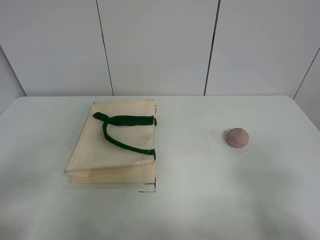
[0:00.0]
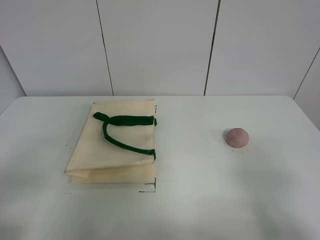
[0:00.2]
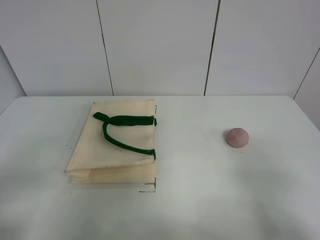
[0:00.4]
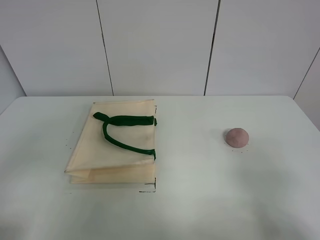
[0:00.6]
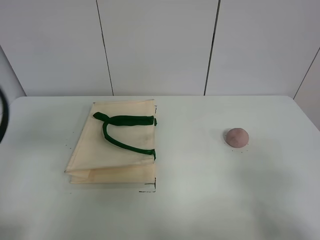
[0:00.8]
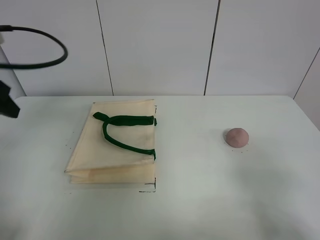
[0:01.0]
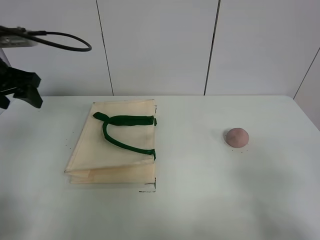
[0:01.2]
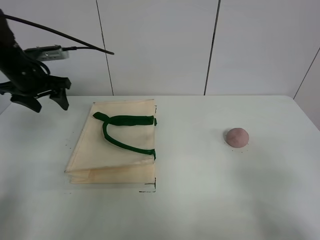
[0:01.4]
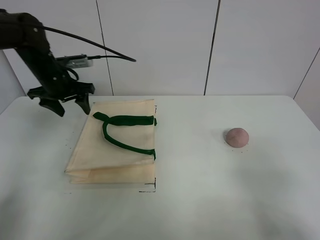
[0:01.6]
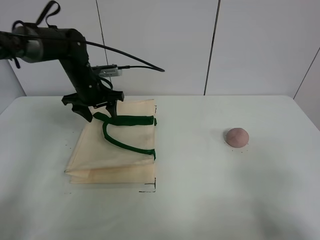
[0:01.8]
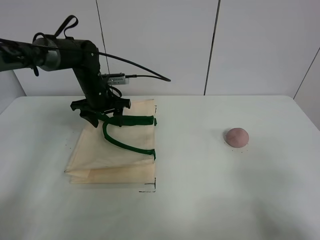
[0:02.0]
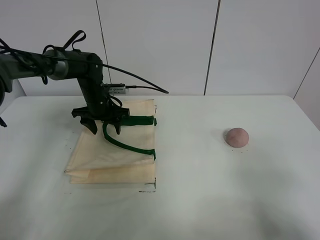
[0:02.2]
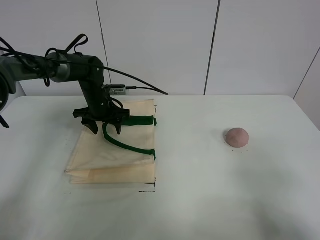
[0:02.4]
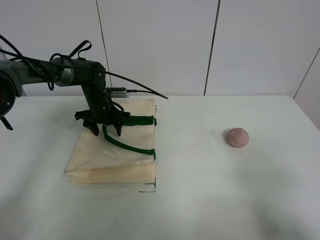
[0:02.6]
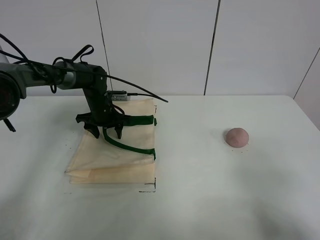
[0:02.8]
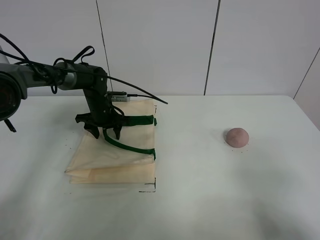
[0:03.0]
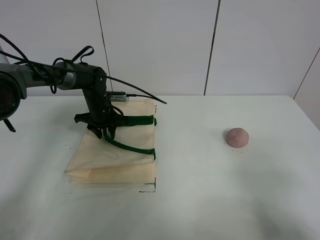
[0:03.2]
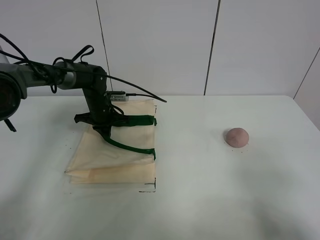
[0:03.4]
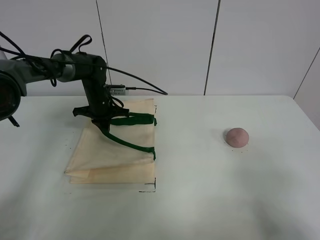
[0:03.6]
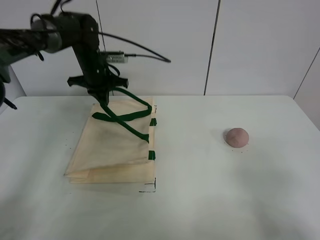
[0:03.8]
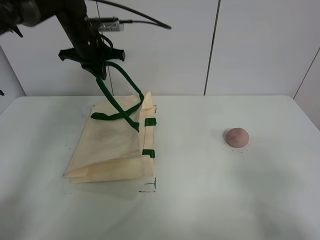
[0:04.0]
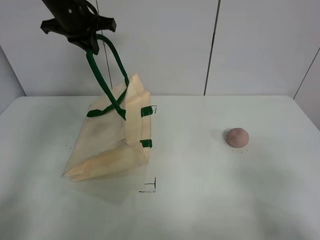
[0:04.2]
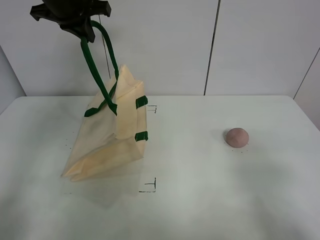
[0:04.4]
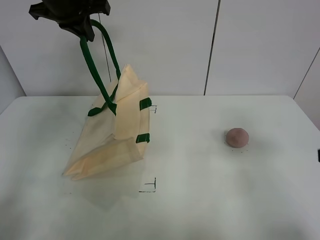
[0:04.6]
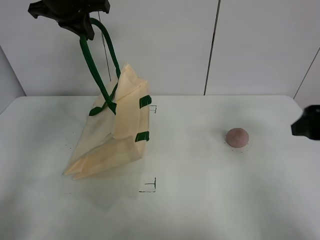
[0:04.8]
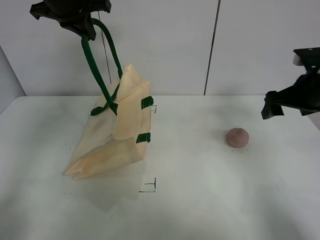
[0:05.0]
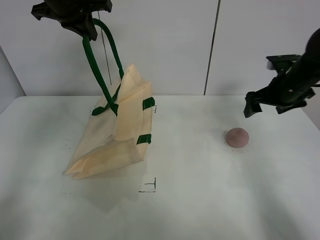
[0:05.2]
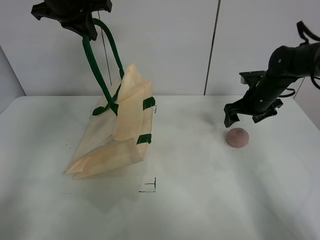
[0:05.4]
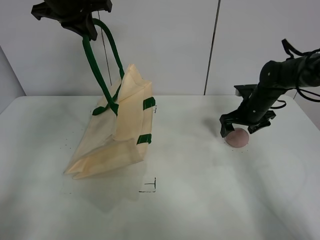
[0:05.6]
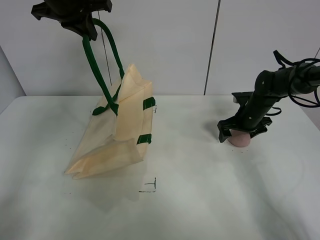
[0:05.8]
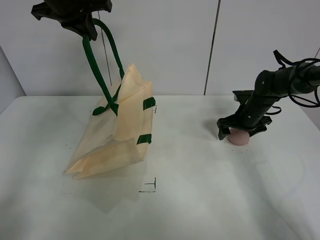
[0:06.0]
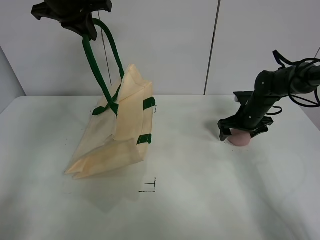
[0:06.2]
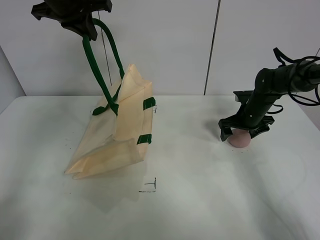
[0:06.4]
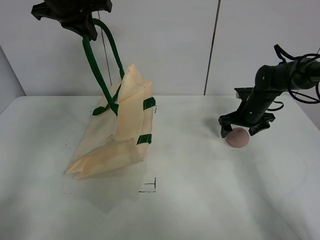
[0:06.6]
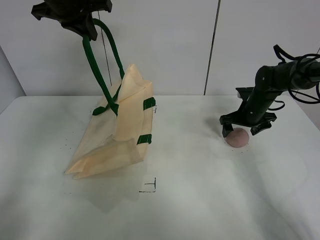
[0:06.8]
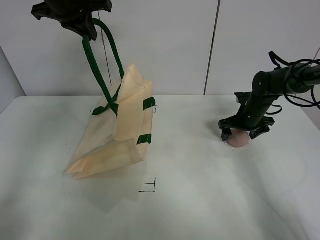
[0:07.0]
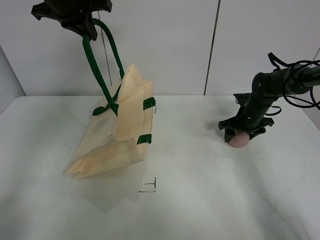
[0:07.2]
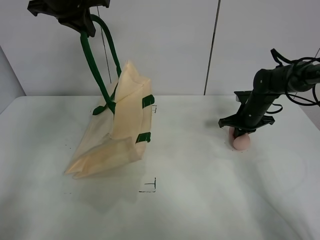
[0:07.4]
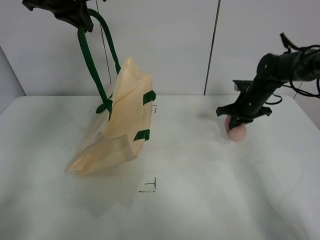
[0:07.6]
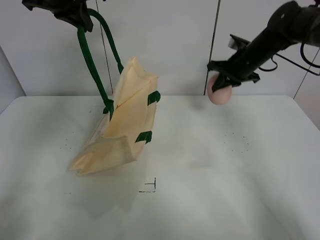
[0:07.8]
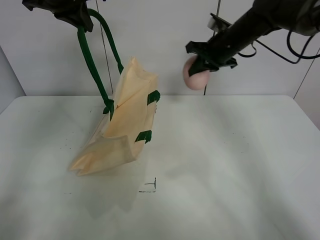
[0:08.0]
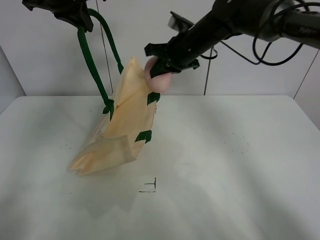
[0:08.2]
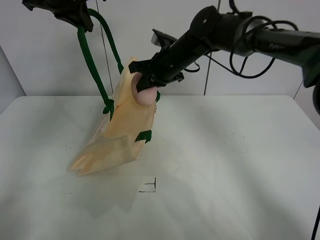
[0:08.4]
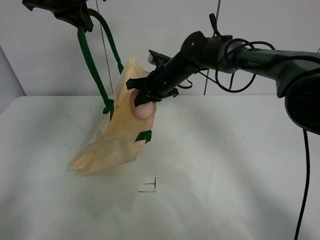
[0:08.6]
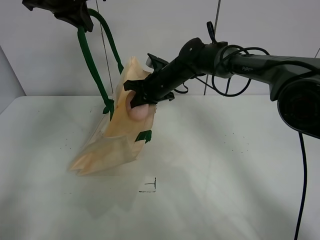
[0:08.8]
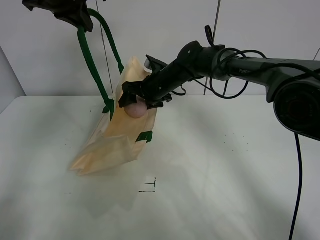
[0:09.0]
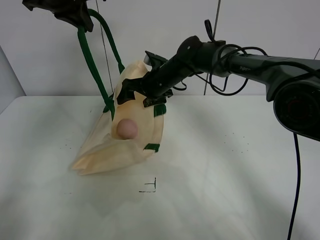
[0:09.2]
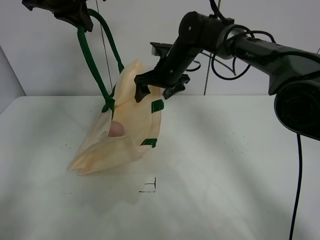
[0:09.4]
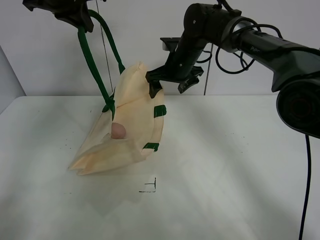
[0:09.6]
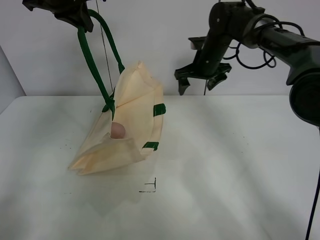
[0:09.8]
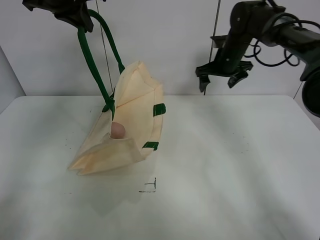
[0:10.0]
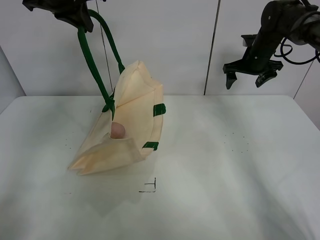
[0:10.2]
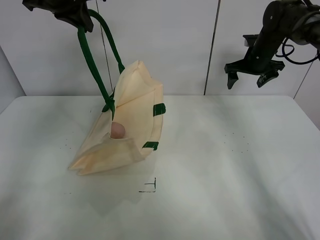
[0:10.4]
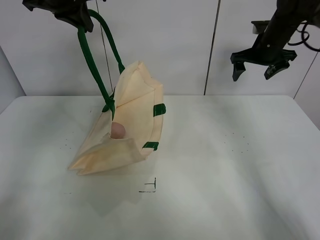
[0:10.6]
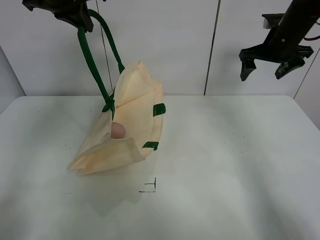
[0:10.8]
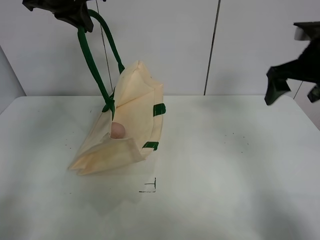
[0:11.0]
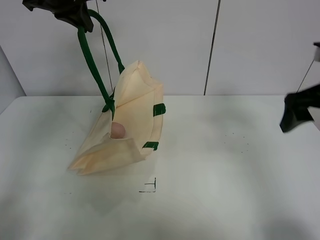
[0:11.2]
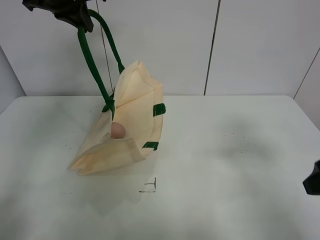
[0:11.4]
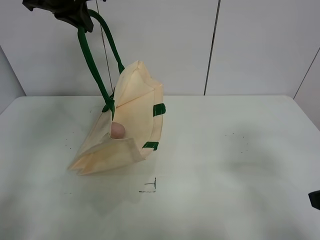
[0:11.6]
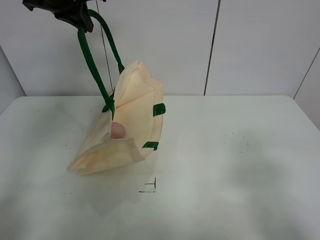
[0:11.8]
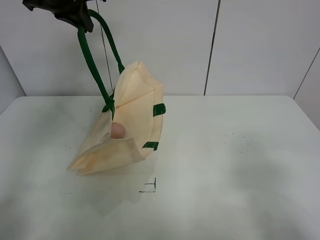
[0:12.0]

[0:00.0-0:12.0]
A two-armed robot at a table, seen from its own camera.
Task of the whole recording: open the white linen bag and put the peach in the bag.
Step, 0:00.0 to 0:04.4: Lift the handbag with left gripper.
Step, 0:04.6 to 0:07.4: Grasp the peach with right gripper.
Step, 0:07.6 to 0:09.6: Place the peach in the handbag with right gripper.
0:00.0 to 0:01.6: The left gripper moves forward, about 40 cm.
0:01.6 to 0:03.0: The left gripper is displaced downward and to the right by roughly 15 cm.
0:03.0 to 0:04.4: The left gripper shifts some 30 cm upward, and closes up.
0:04.4 to 0:06.0: The right gripper shifts about 40 cm forward and downward.
0:06.0 to 0:07.6: The right gripper closes up.
0:07.6 to 0:09.0: The right gripper travels to the left by some 25 cm, and opens.
0:09.0 to 0:10.4: The right gripper is displaced to the right by roughly 25 cm.
0:10.4 to 0:12.0: The right gripper goes approximately 50 cm backward.

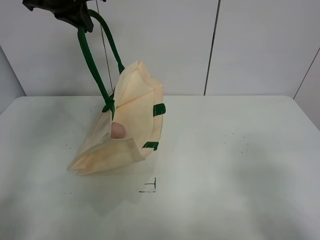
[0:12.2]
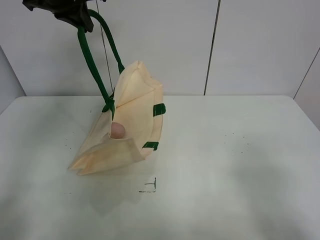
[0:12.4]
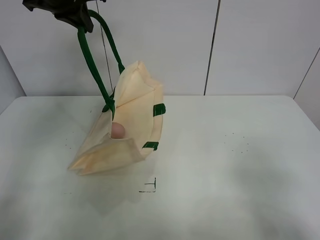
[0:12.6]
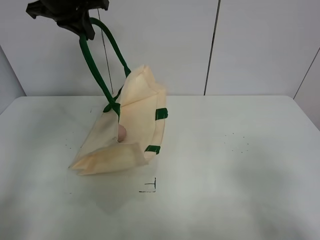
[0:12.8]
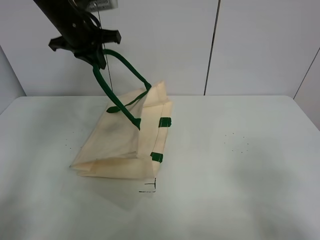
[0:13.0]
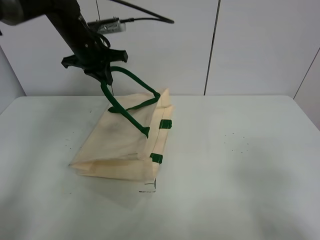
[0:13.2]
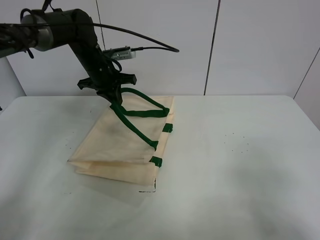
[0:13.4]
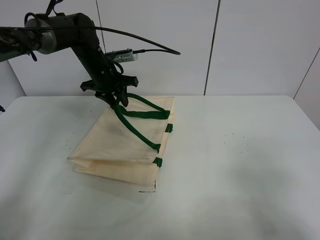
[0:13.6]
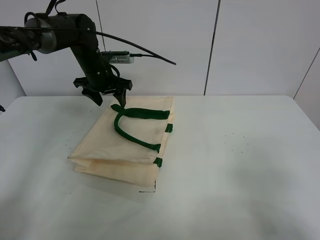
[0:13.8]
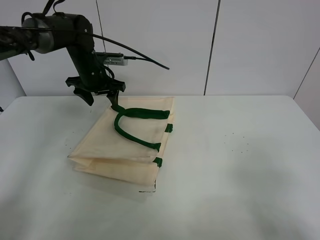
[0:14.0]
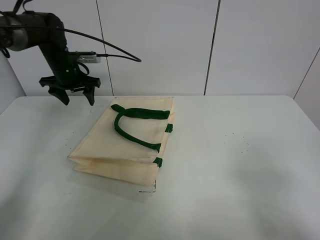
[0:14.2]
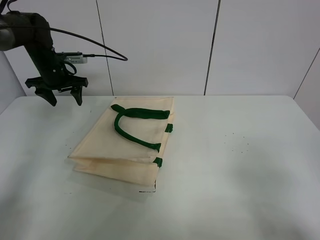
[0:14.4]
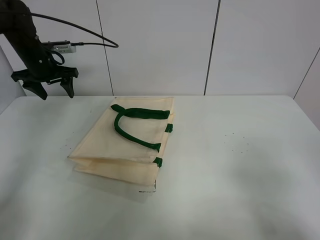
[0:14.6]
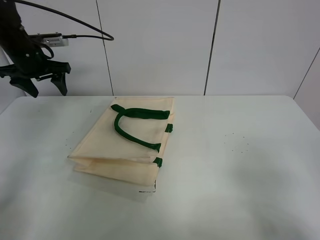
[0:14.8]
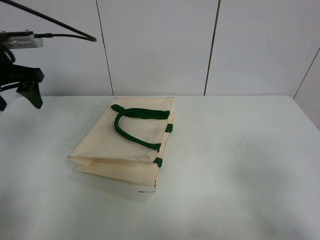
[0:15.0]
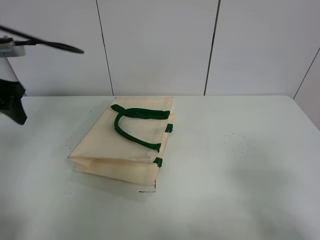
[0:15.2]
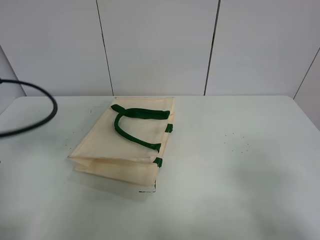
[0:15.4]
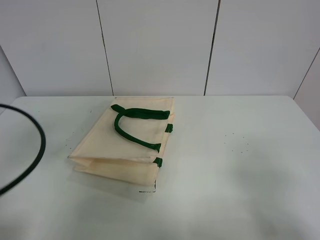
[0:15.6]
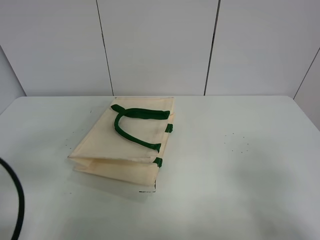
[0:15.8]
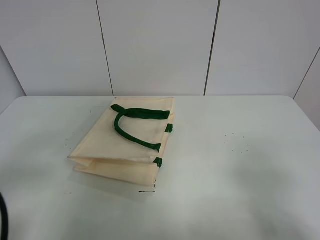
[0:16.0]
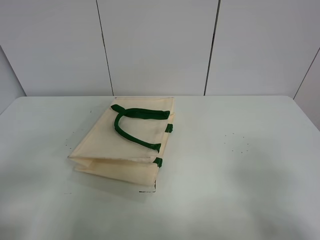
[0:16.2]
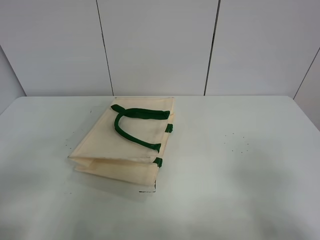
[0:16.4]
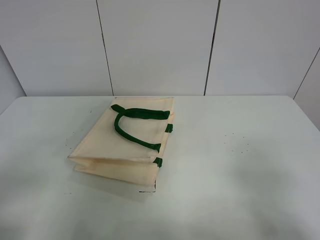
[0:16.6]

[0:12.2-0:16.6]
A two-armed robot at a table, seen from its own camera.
Task of the whole recording: open the white linen bag and put the peach in the bag.
0:12.2 to 0:13.6: The left gripper goes roughly 20 cm downward, and opens up.
0:13.6 to 0:15.2: The left gripper goes about 30 cm backward, to the left and upward.
0:15.2 to 0:16.6: The left gripper goes about 25 cm backward.
